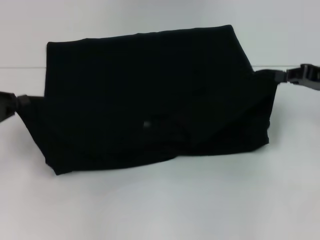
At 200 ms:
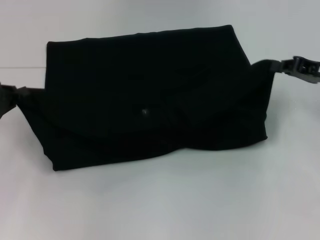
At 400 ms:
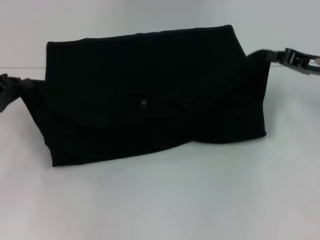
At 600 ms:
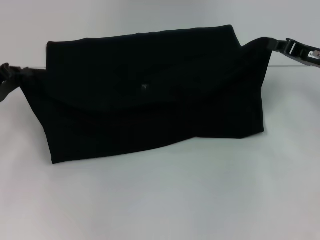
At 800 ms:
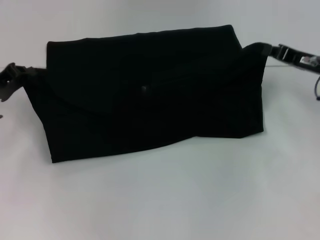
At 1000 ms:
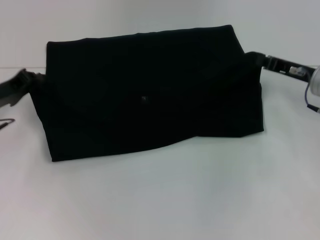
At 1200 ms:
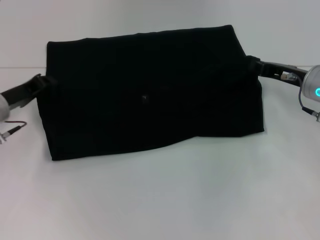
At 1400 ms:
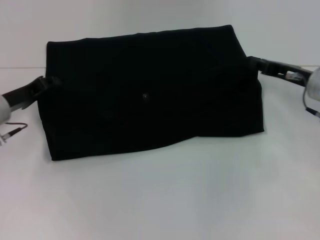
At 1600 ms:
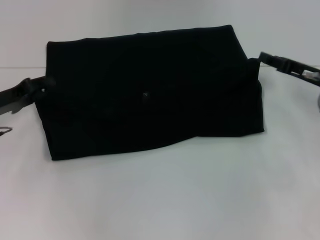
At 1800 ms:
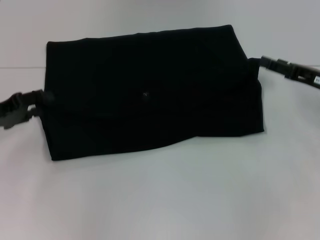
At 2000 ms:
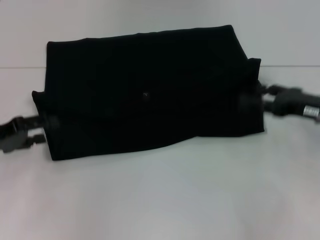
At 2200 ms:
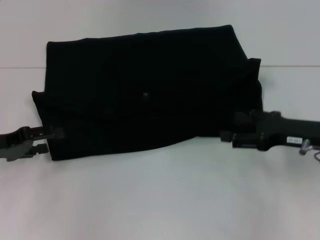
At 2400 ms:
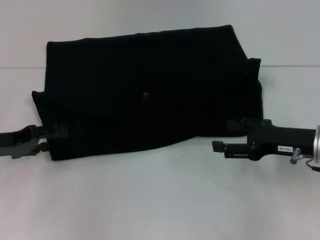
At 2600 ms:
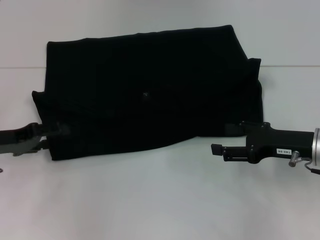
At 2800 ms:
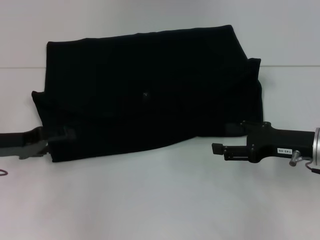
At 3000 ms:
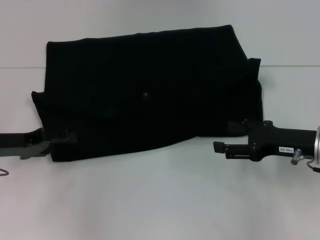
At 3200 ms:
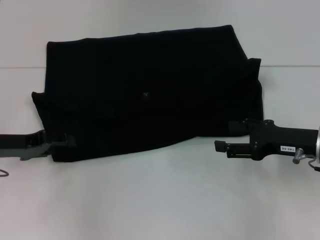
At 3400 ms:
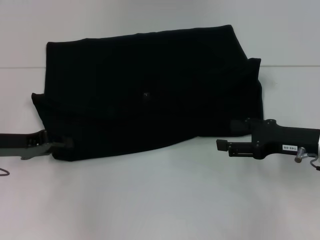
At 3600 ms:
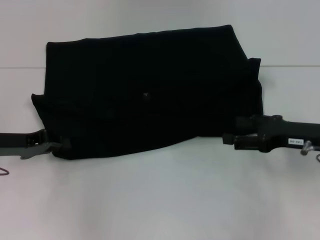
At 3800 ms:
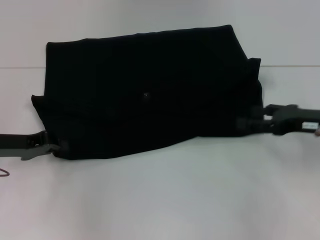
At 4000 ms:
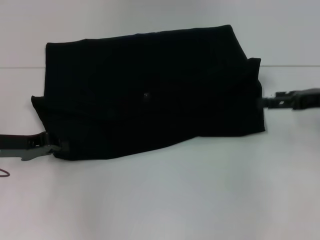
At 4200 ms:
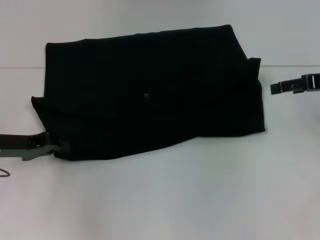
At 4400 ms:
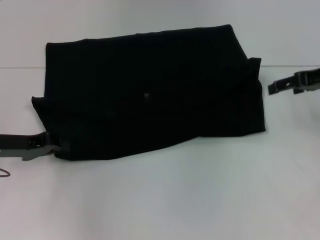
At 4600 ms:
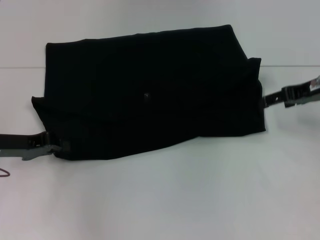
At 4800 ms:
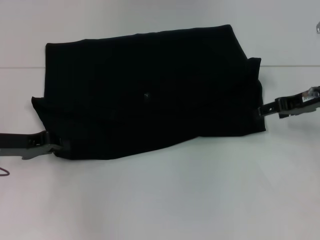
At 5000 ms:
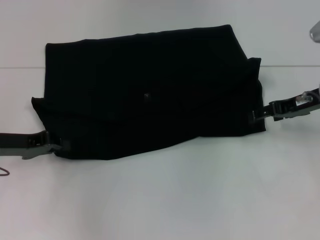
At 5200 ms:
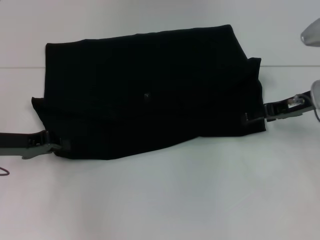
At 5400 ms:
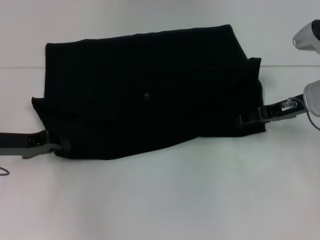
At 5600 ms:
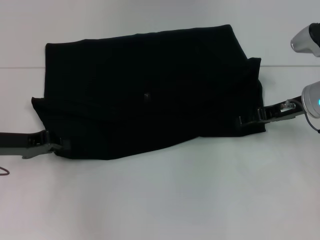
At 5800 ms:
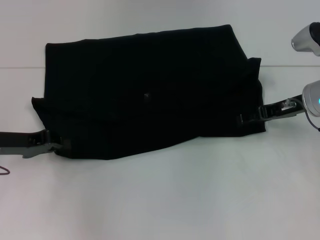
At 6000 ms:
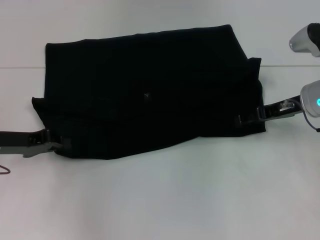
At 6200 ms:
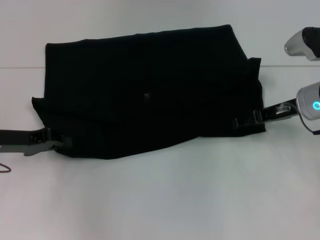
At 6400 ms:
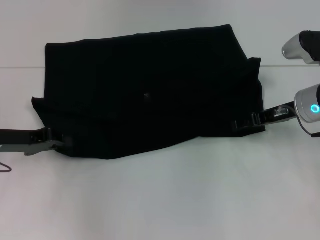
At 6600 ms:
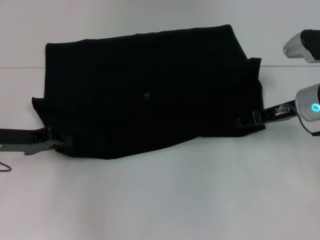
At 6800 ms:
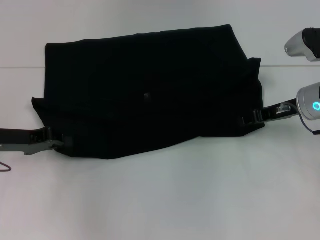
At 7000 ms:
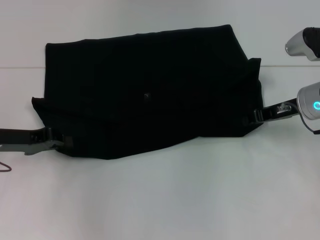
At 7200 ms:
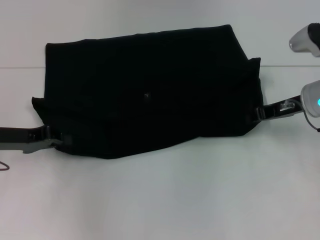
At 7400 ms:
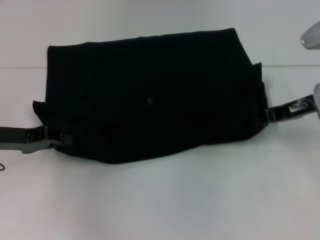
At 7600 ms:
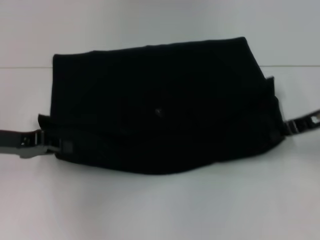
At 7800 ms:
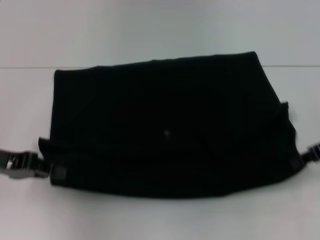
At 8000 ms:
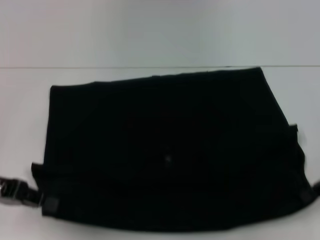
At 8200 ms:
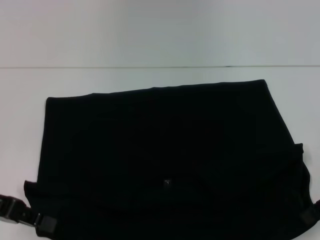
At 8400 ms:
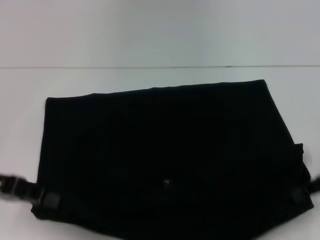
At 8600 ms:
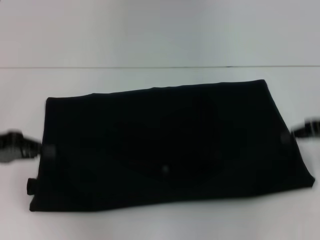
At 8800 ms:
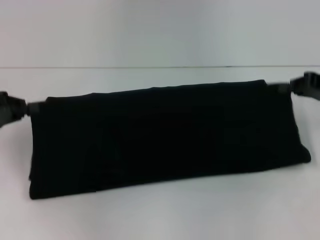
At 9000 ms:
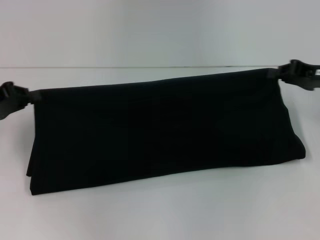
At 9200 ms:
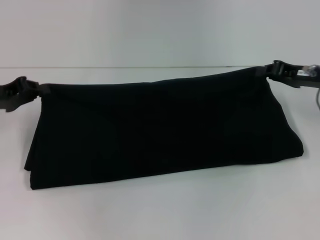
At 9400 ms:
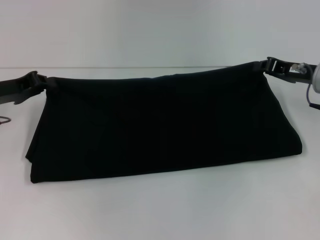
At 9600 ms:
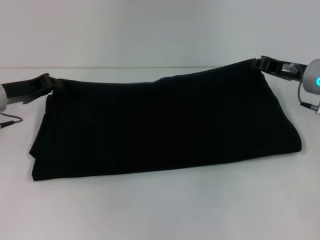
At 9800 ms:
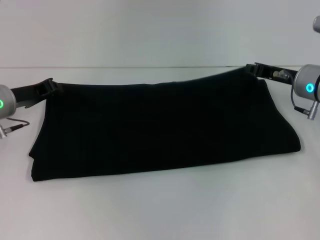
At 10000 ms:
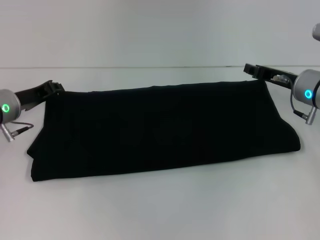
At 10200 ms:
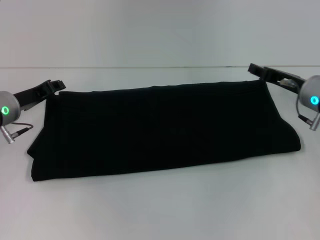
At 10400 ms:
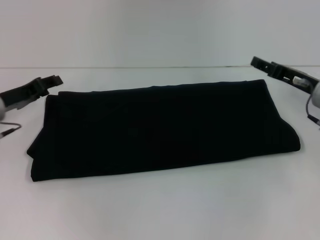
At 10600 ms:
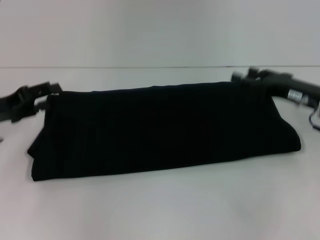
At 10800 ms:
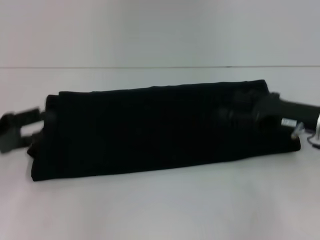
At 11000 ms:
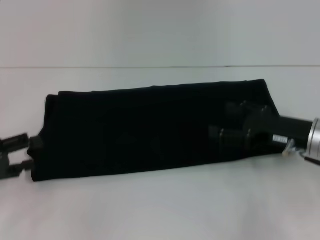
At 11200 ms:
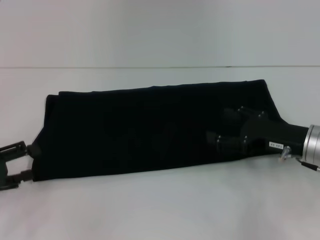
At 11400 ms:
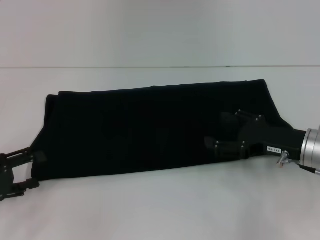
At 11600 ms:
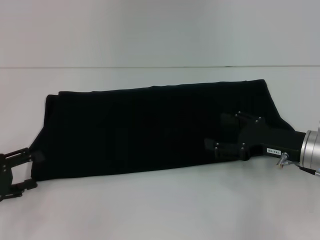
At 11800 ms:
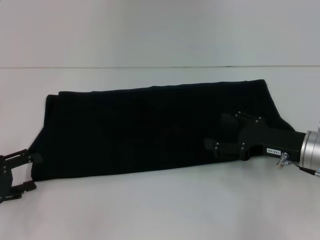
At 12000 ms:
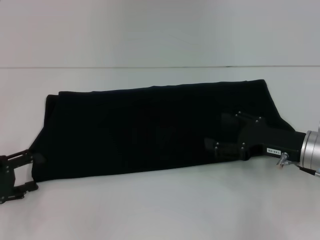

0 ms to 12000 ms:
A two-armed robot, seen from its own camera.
Step, 1600 ms to 8000 ms: Pull the clothes with your left hand.
Step, 1600 ms to 8000 ms: Pull the clothes with your right hand.
Step, 8200 ms to 10200 ms: Fold the clothes with your right hand.
0 ms to 1600 ms: The right gripper opens up; the left gripper ends up approximately 5 cm from where it was.
1600 ms to 3000 ms: The right gripper moves backward, approximately 5 cm, and opens up, while the left gripper opens.
3000 ms to 4400 ms: The left gripper closes. The right gripper goes some 15 cm upward and forward.
4400 ms to 6000 ms: The right gripper heads downward and to the left, covering some 10 cm.
6000 ms to 7600 ms: The right gripper ends up approximately 5 cm from where it was, and closes its fingers.
7600 ms to 9000 ms: The right gripper travels backward and back again, approximately 5 cm each way.
9000 ms to 10400 ms: The left gripper is displaced to the right by roughly 5 cm; the right gripper moves downward, about 5 cm, and opens.
10400 ms to 12000 ms: The right gripper is displaced backward by some 5 cm, and opens; the left gripper shifts approximately 15 cm backward and to the left, and opens.

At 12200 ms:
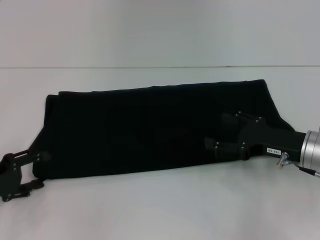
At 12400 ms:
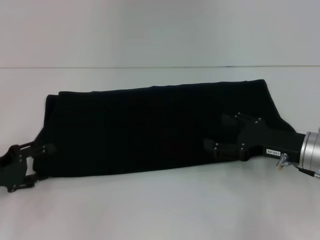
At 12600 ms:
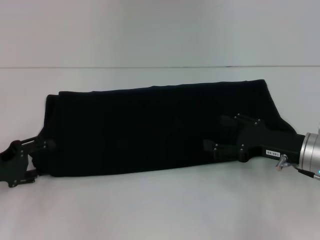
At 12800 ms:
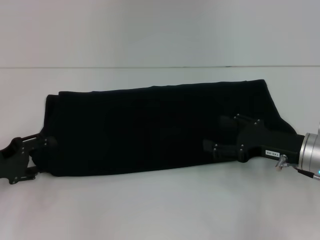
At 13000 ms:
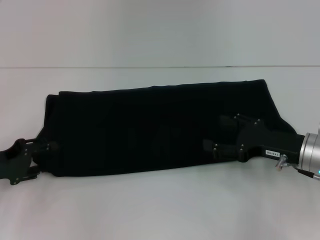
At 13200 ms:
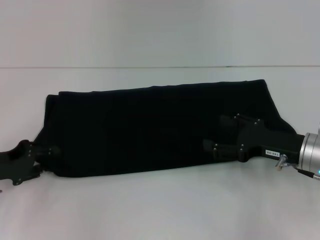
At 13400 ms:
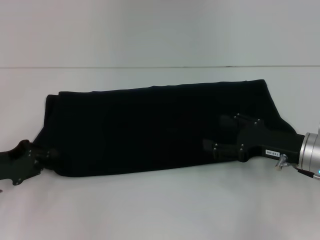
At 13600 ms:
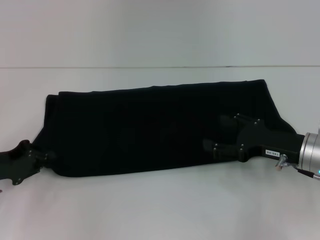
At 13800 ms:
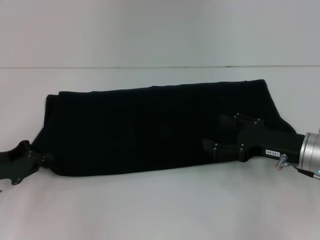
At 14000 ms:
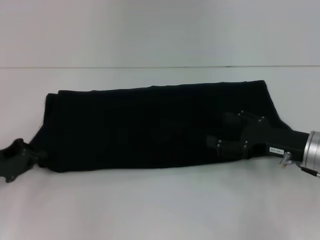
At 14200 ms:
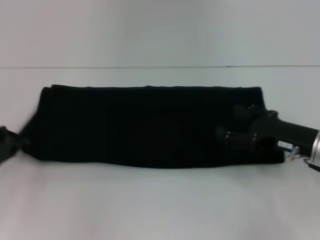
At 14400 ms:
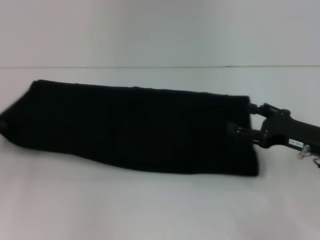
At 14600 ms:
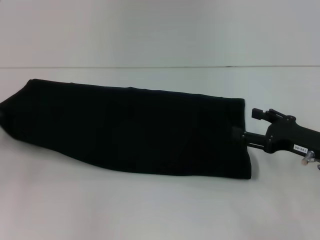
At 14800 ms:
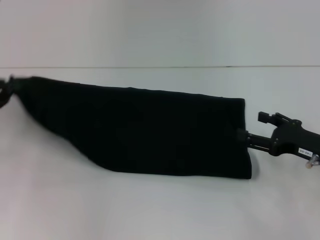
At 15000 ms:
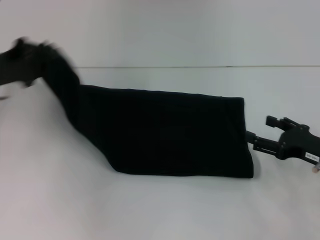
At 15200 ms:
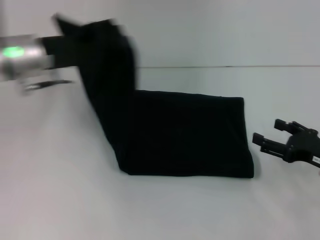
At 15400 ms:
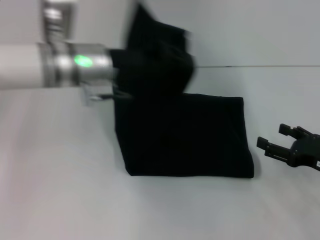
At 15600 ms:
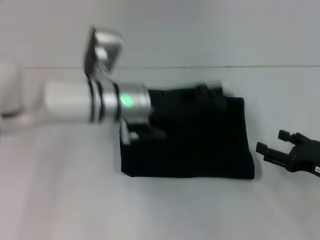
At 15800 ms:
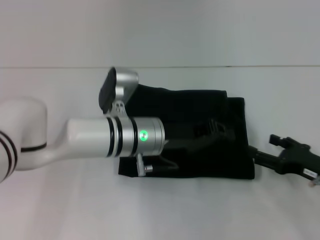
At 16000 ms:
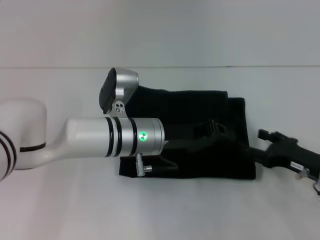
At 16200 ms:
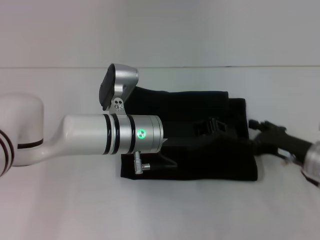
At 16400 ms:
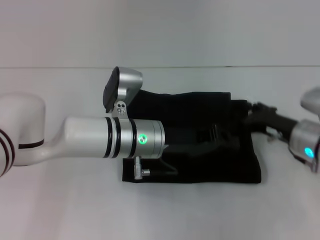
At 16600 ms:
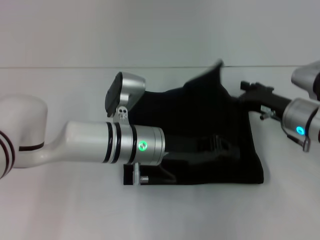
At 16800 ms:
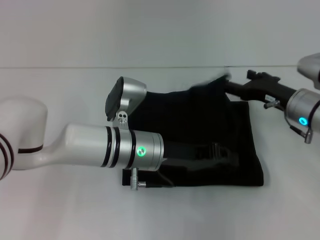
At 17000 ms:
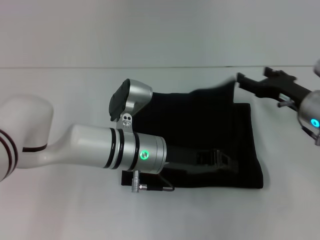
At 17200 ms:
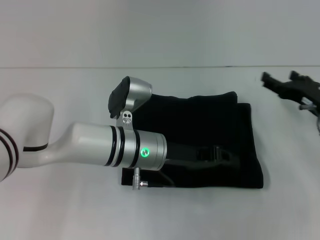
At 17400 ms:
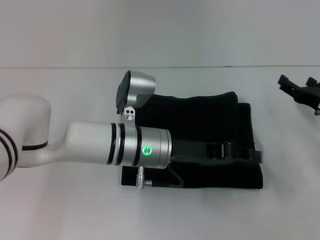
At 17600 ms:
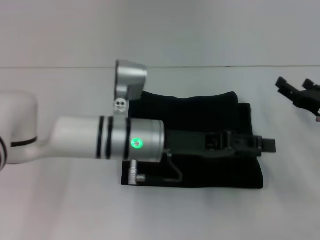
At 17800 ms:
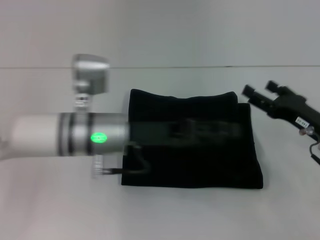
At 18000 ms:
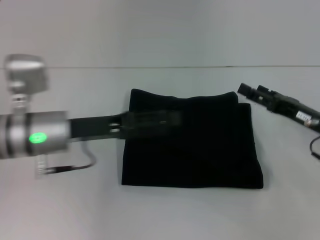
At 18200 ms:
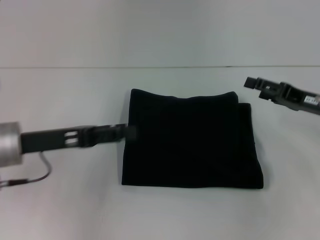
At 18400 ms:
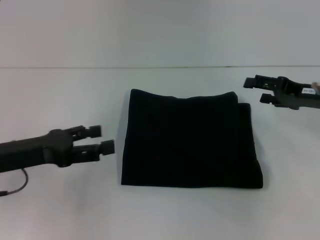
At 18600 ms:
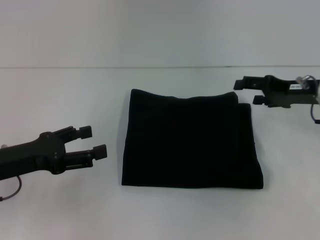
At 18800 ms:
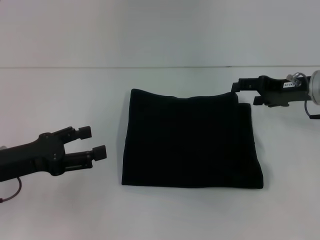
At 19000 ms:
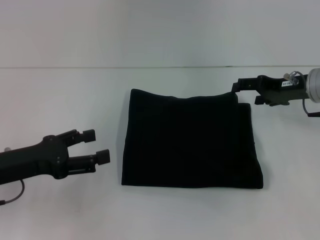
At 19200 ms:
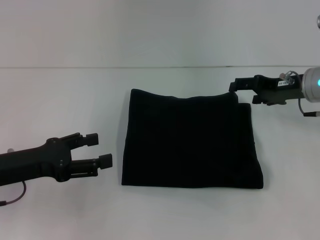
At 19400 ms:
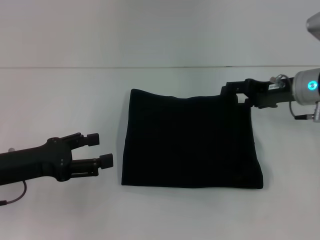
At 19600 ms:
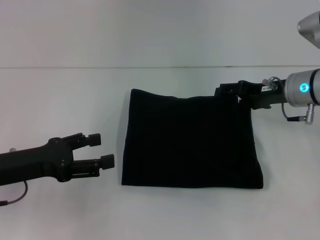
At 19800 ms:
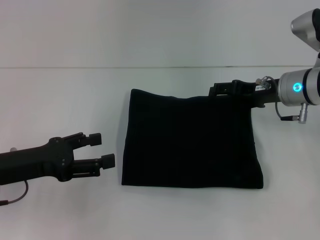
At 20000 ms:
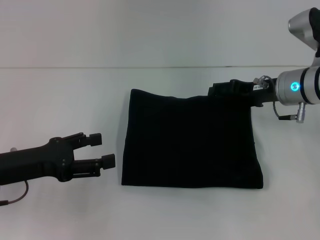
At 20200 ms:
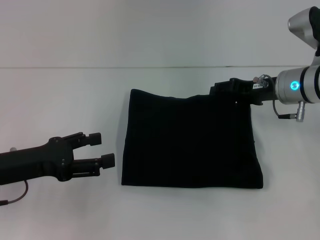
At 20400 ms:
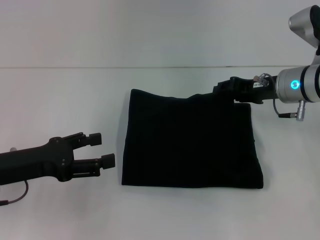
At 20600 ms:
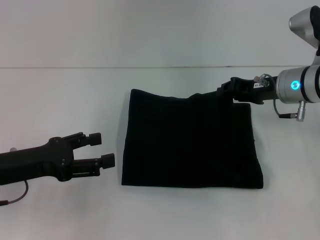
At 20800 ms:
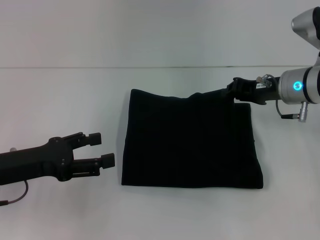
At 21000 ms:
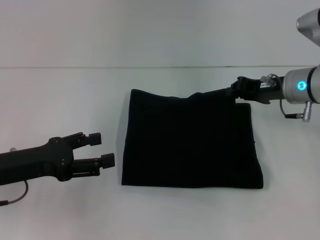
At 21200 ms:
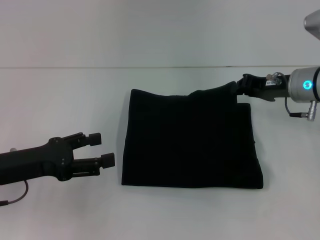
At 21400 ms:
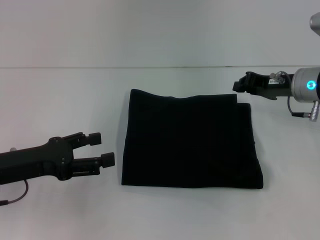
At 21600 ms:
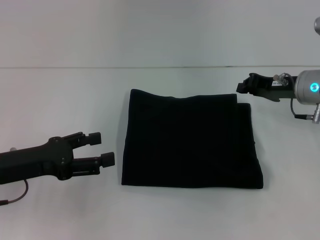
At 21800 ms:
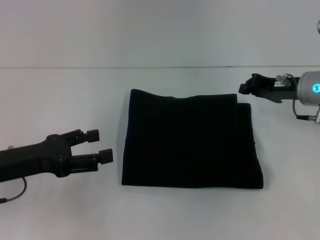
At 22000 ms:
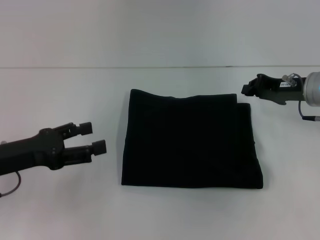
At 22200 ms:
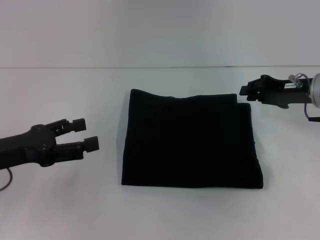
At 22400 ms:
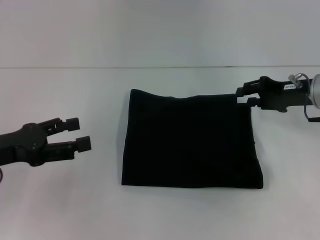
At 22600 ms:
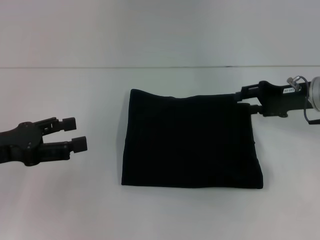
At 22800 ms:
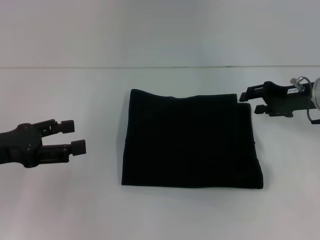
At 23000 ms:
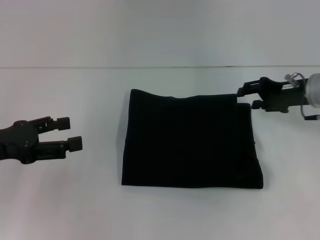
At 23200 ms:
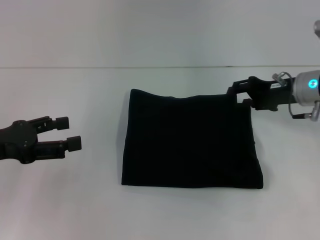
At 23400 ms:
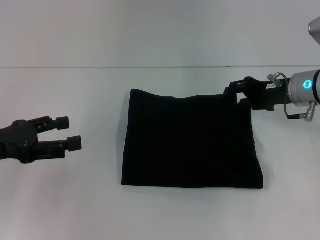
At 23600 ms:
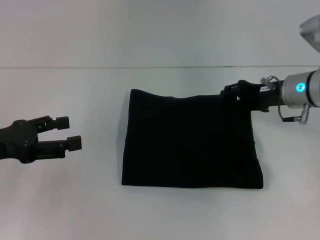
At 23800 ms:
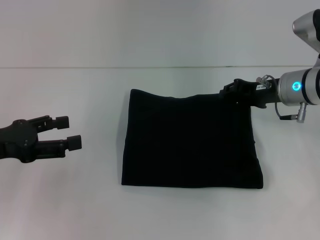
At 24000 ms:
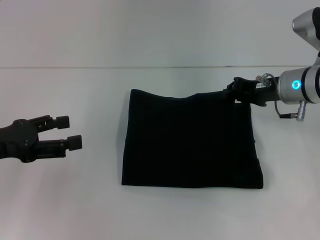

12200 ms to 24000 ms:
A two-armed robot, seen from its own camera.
Step, 12200 ms to 17200 ms: Fold the clothes with your left hand.
12200 ms to 13600 ms: The left gripper closes up.
13600 ms to 15200 ms: The right gripper is displaced to the right by some 5 cm; the left gripper goes about 20 cm upward, to the right and forward, and closes its fingers.
15200 ms to 16600 ms: The left gripper shifts about 20 cm to the right and downward. The right gripper goes approximately 10 cm forward and to the left.
16600 ms to 18200 ms: The left gripper shifts approximately 20 cm to the left, and opens; the right gripper travels to the right by some 5 cm.
18200 ms to 19600 ms: The right gripper is displaced to the left and forward by some 10 cm.
19600 ms to 21000 ms: The right gripper closes its fingers.
21000 ms to 24000 ms: The grippers move only a little.
